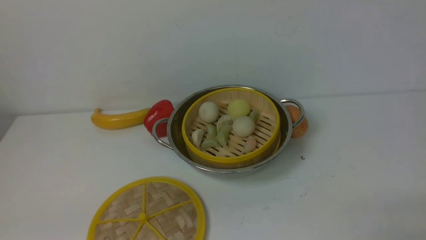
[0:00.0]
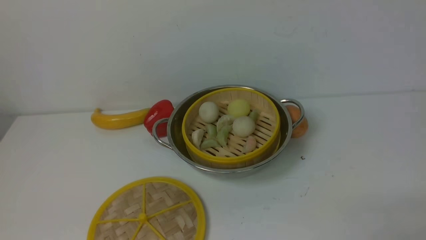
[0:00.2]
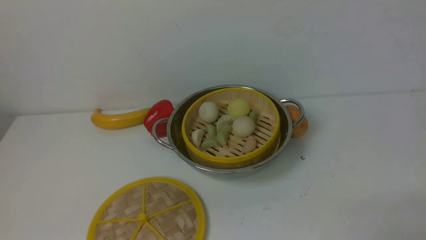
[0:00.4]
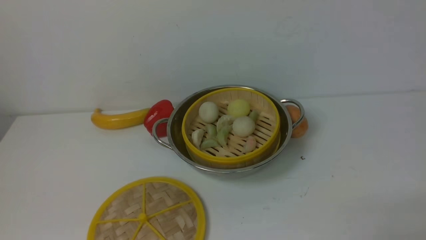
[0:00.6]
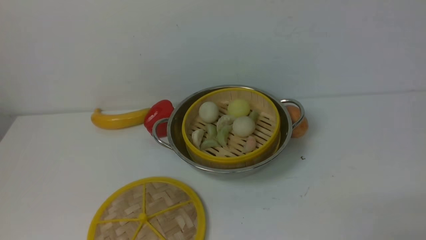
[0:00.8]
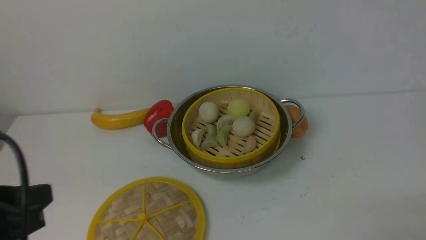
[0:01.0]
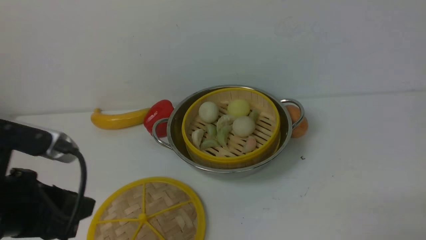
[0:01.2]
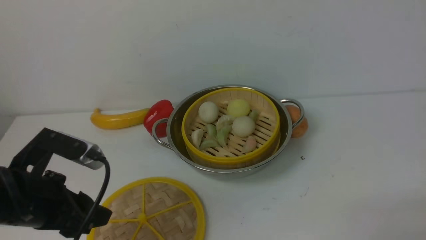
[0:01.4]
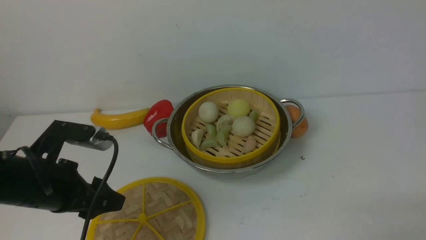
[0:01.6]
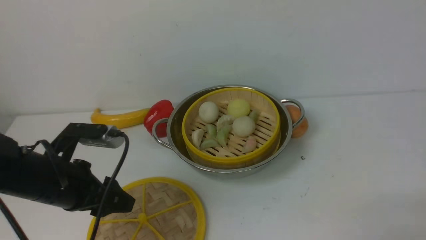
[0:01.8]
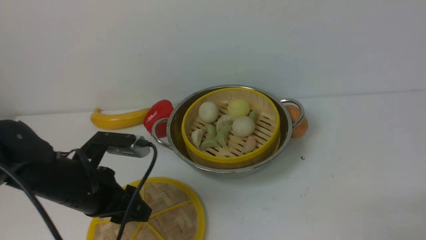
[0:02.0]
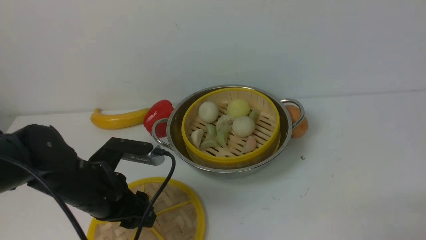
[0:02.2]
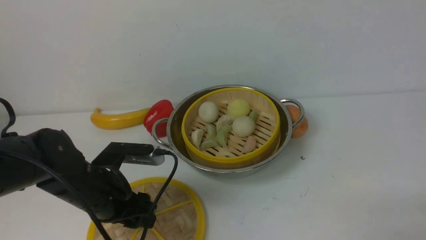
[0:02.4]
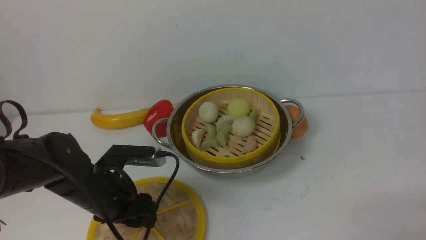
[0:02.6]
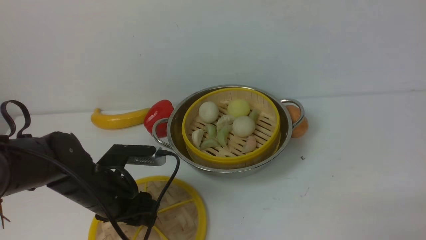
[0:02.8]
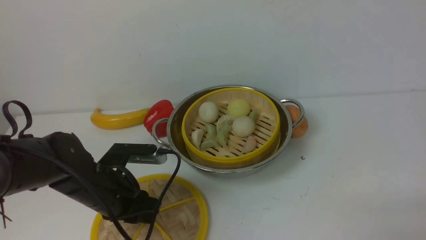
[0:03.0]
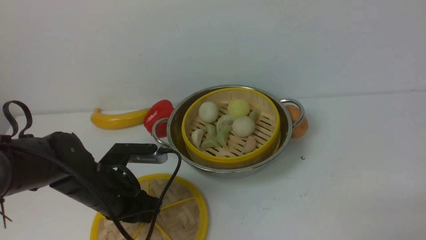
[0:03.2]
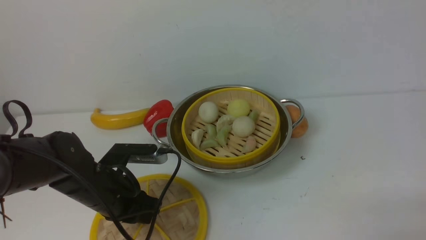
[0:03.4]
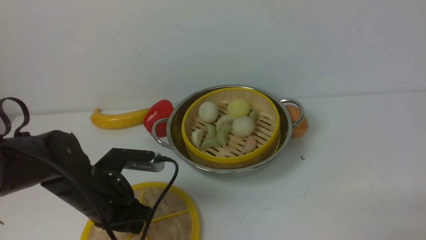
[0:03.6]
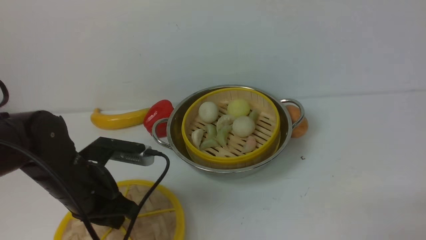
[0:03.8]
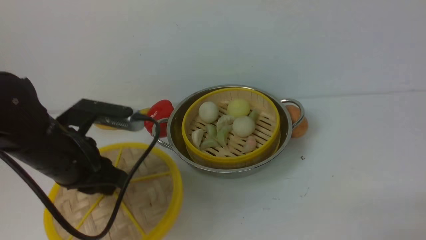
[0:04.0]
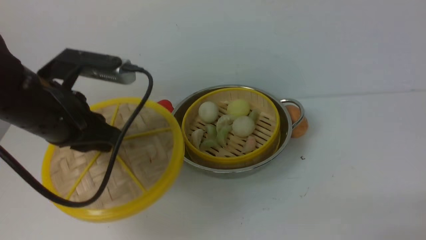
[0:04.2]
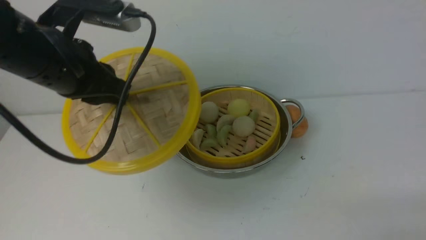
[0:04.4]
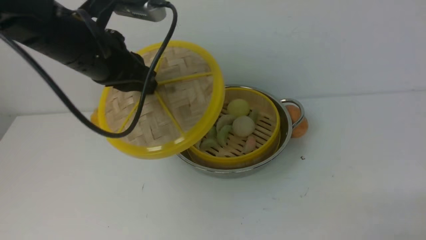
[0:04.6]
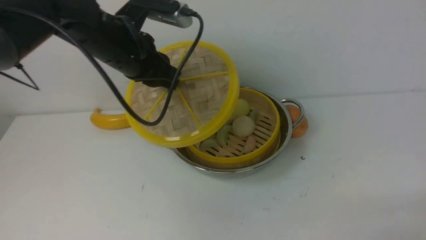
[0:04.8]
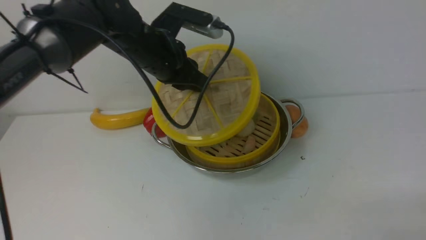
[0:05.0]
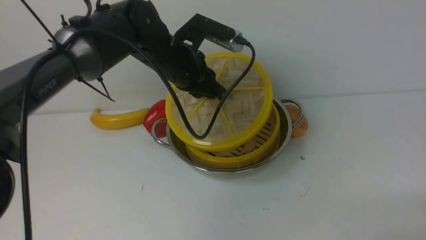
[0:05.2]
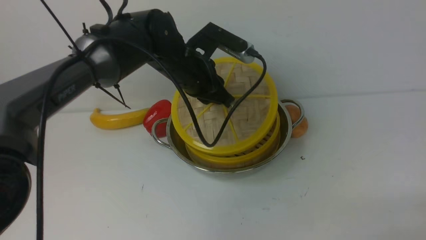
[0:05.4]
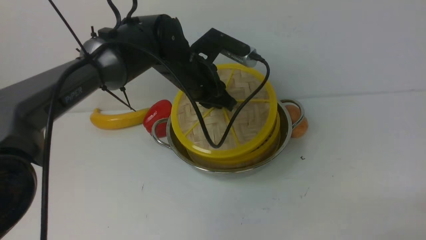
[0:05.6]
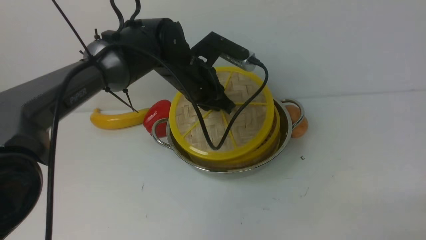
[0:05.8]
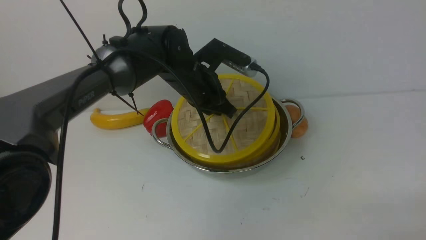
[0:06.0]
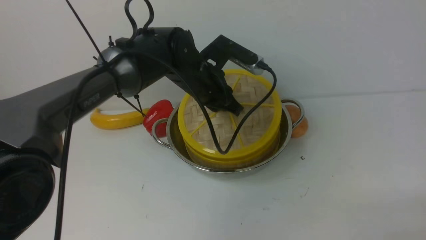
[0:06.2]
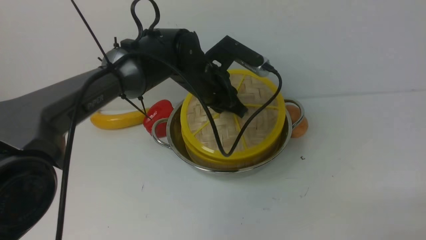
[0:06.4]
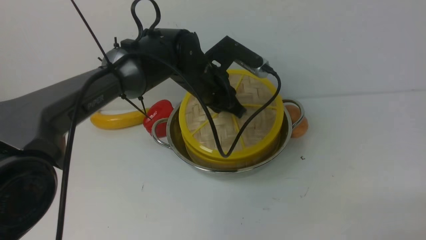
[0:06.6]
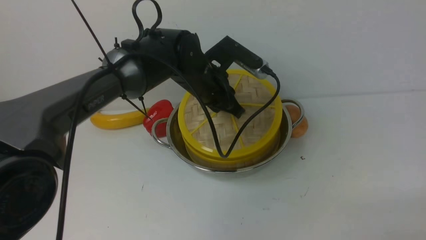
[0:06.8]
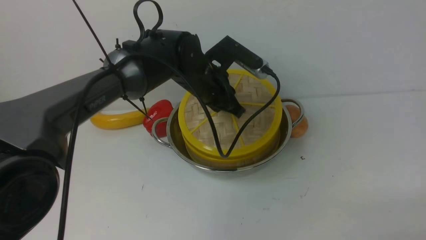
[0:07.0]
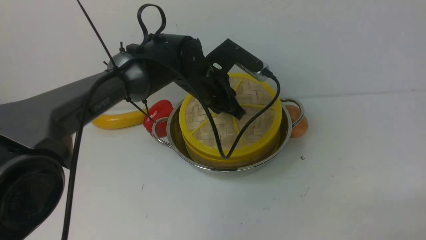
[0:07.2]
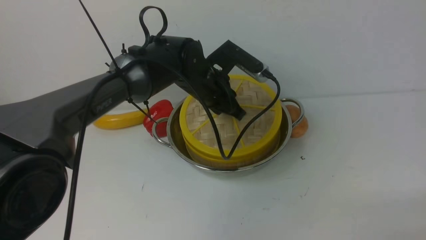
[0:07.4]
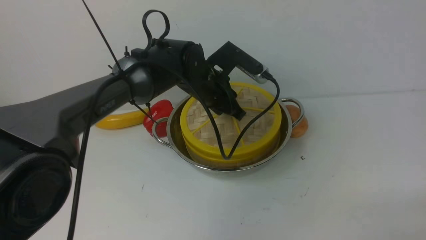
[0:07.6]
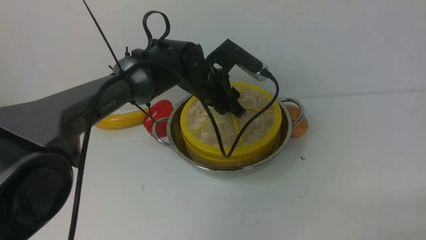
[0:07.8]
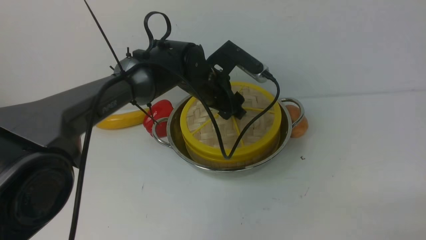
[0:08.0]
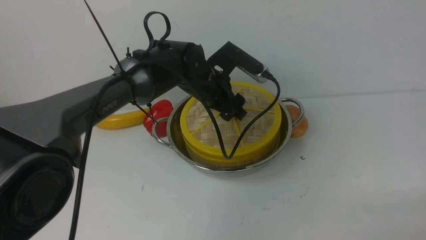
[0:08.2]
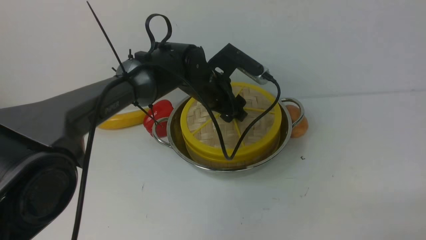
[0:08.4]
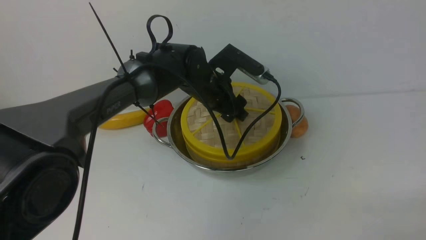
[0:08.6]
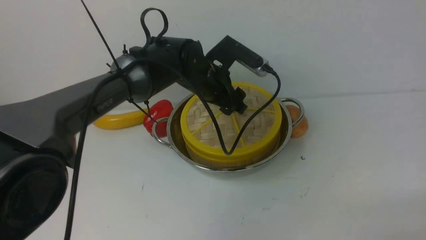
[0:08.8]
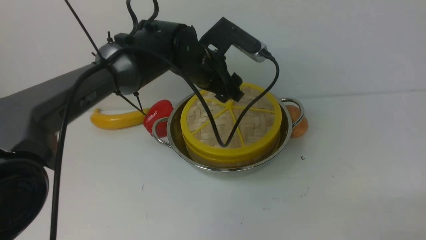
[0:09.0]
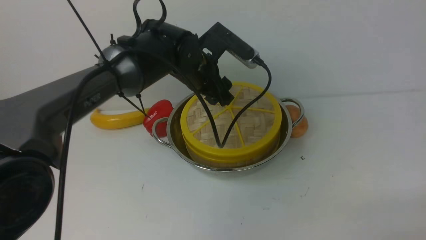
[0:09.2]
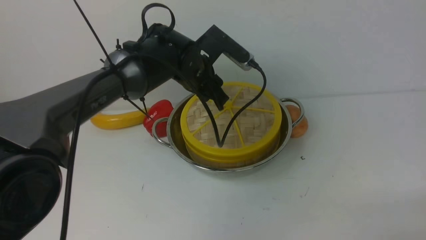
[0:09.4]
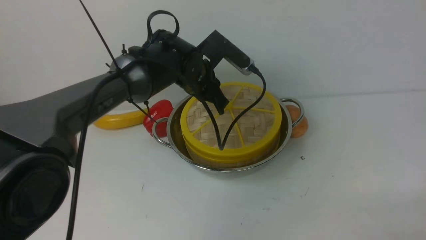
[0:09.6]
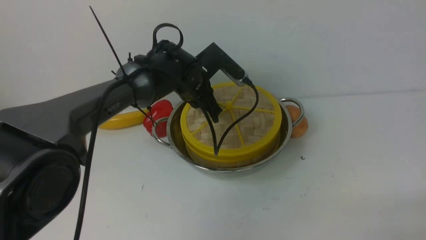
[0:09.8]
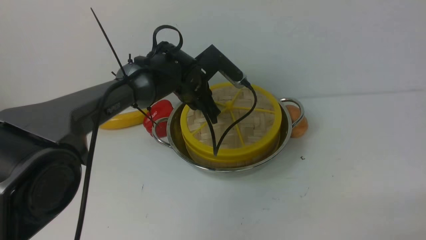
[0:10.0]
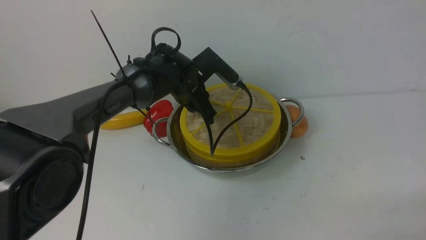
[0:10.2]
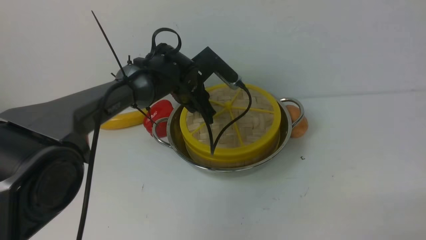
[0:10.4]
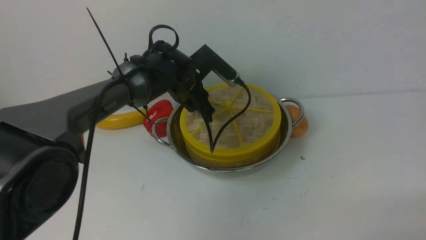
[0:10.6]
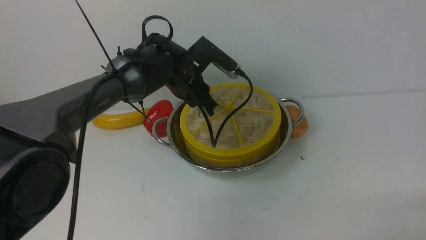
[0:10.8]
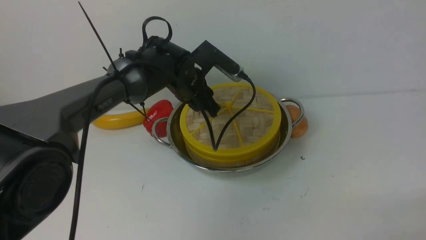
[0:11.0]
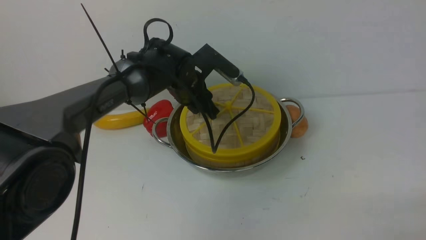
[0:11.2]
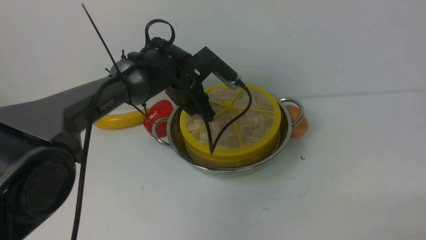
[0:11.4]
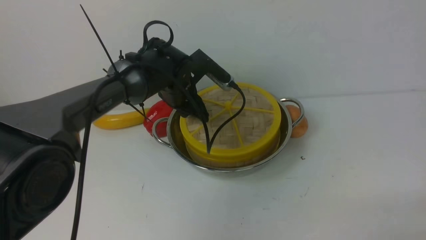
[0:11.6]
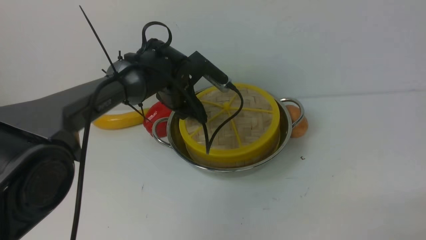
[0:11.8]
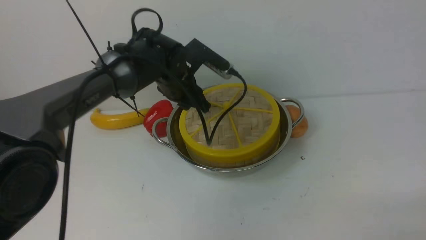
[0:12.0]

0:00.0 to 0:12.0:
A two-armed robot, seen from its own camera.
Task of the whole recording: place the steamer in the pot on the white table, and put the lid on the steamer.
Step, 0:00.0 to 0:04.4: use the left arm to lift the lid of the steamer.
0:00.0 to 0:01.6: The left gripper travels forward by some 15 cm, and opens its fingers.
0:01.6 to 0:03.0: The left gripper moves downward, forward and to the right, roughly 10 cm.
0:03.0 to 0:04.4: The left gripper shifts roughly 20 cm upward, and closes its fingers.
0:04.4 to 0:06.0: The left gripper heads to the right, forward and downward, covering some 20 cm.
0:06.0 to 0:07.6: There are only small adjustments of the grippers.
0:07.6 to 0:09.0: The left gripper opens its fingers.
0:09.0 to 0:10.4: The left gripper moves roughly 5 cm, and closes.
0:10.4 to 0:12.0: The grippers move only a little.

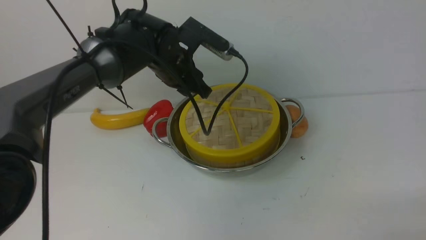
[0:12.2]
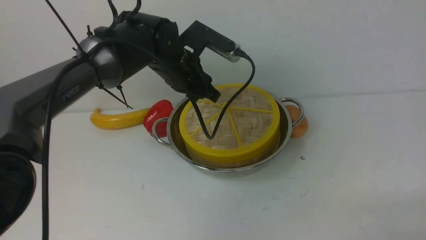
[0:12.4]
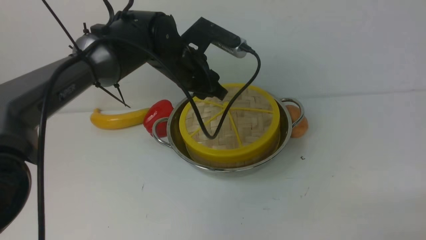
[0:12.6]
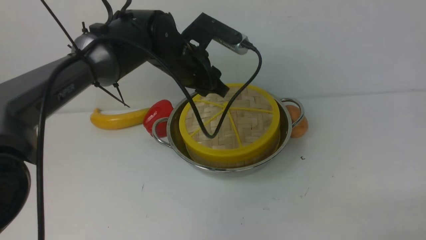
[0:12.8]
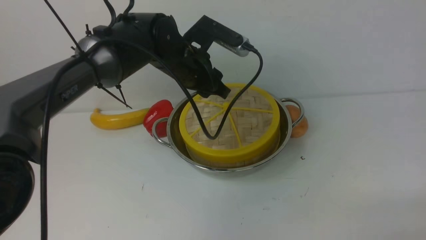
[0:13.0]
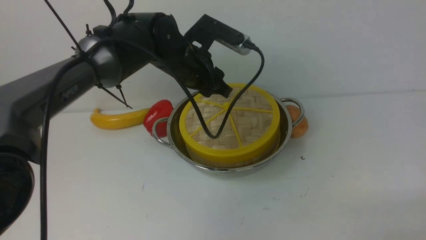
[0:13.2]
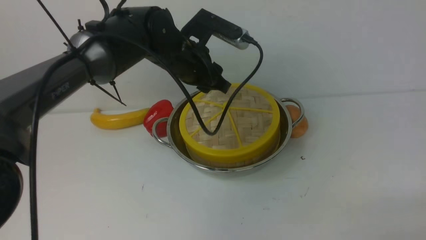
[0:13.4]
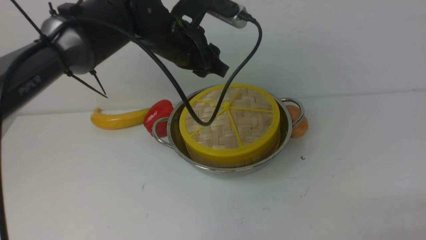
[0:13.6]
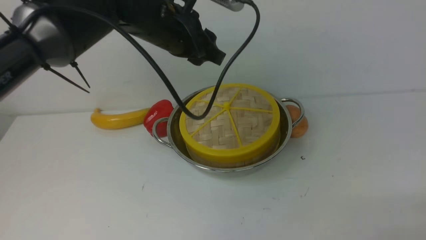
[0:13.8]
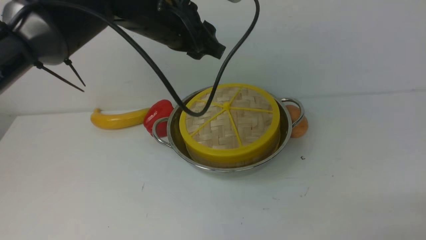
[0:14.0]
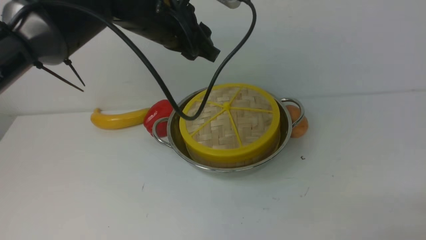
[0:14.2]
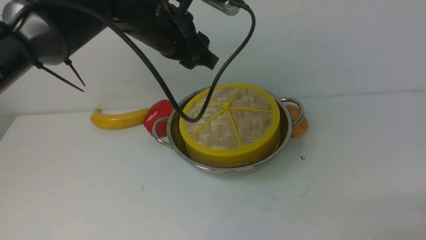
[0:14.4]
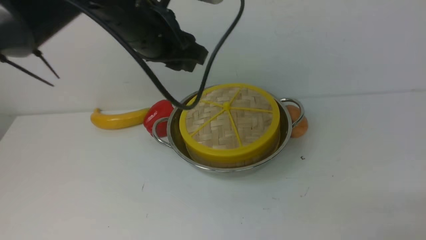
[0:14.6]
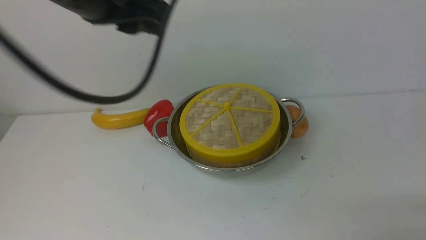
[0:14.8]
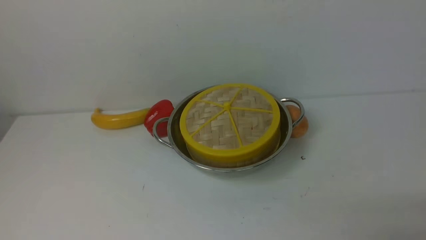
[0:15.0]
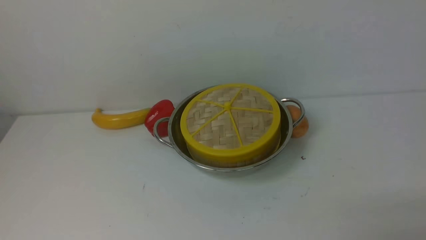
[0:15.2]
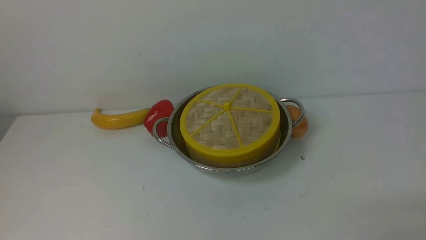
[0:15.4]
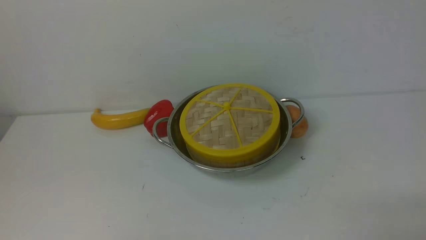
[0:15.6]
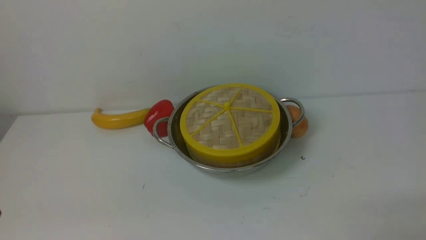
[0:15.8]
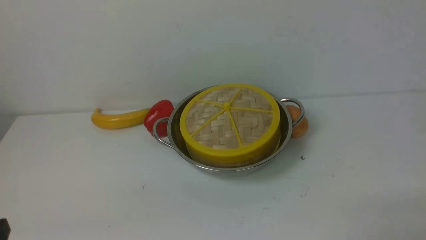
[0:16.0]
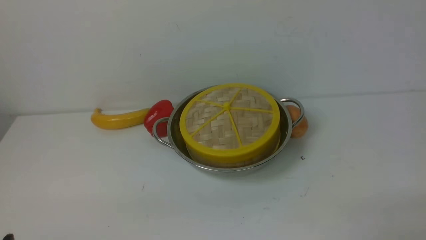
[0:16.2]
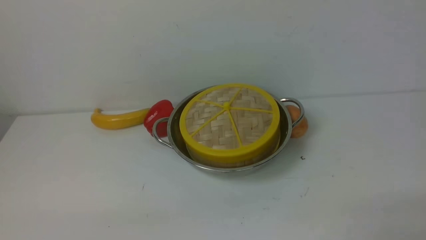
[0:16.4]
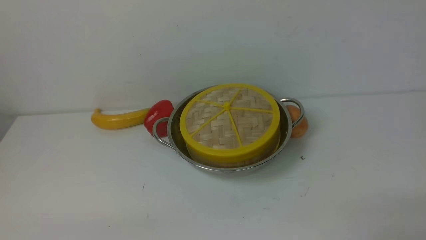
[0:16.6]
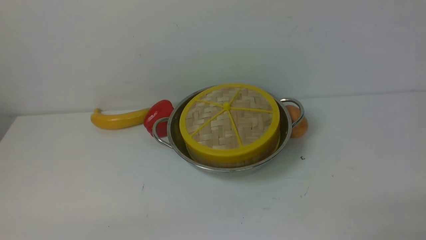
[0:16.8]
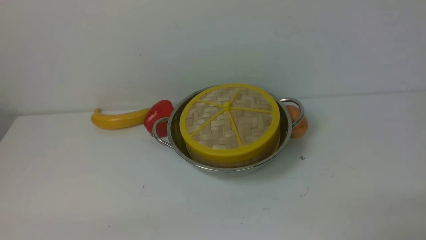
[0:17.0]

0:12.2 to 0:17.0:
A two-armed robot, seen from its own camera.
Task of the whole recording: place the steamer in the pot on the white table, and put the lid on the steamer.
0:12.2 to 0:13.8: The left gripper moves upward, some 10 cm.
0:13.8 to 0:15.4: The left gripper moves backward, to the left and upward, about 40 cm.
